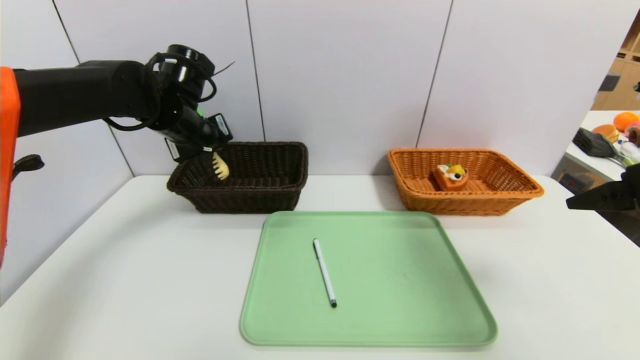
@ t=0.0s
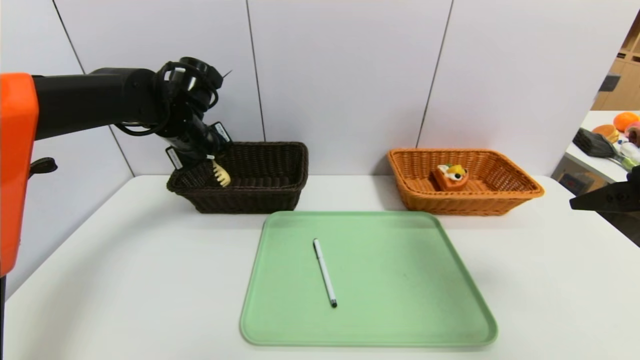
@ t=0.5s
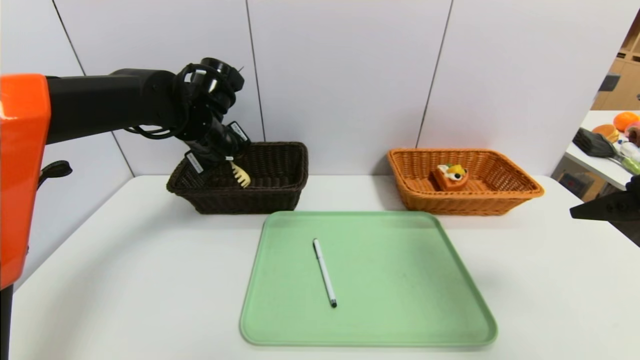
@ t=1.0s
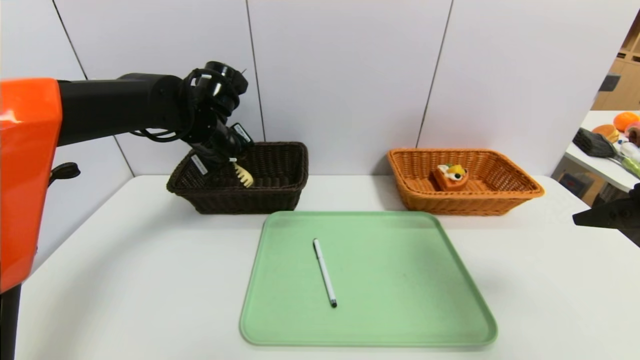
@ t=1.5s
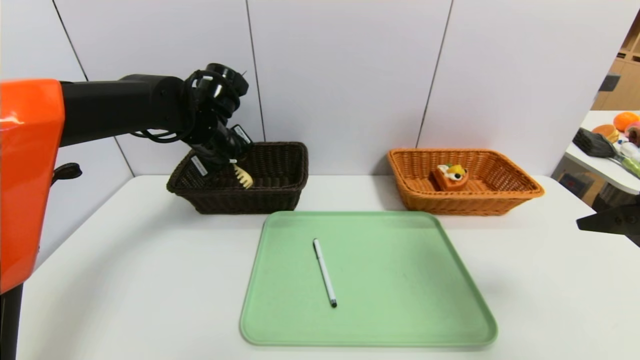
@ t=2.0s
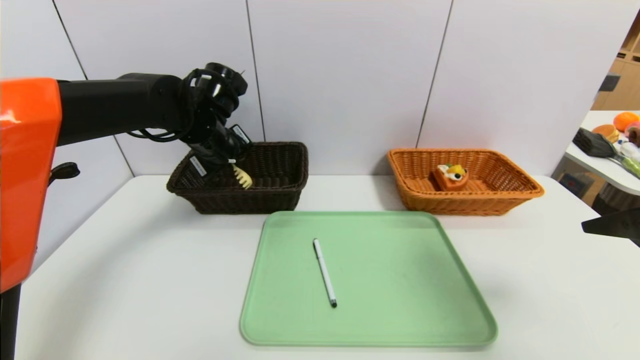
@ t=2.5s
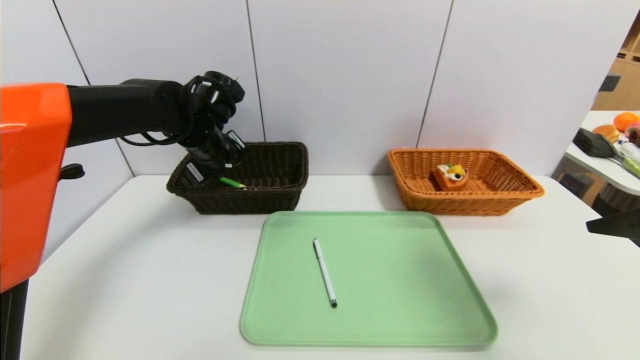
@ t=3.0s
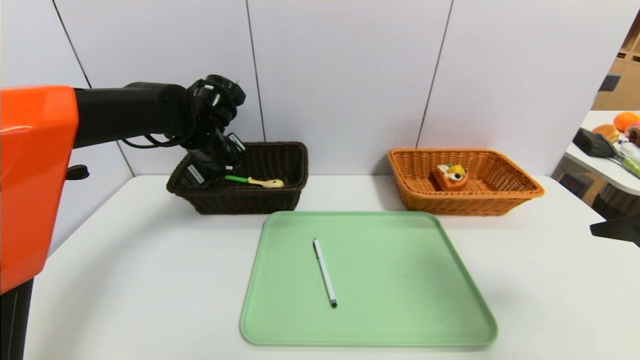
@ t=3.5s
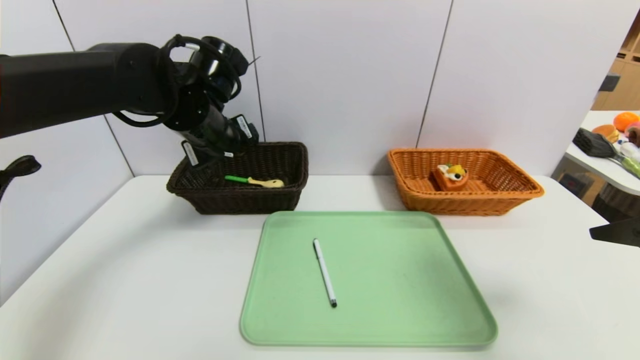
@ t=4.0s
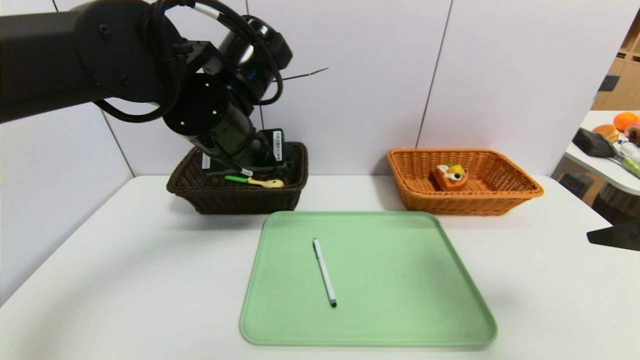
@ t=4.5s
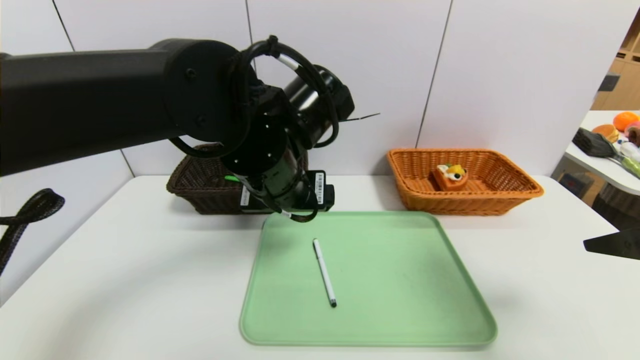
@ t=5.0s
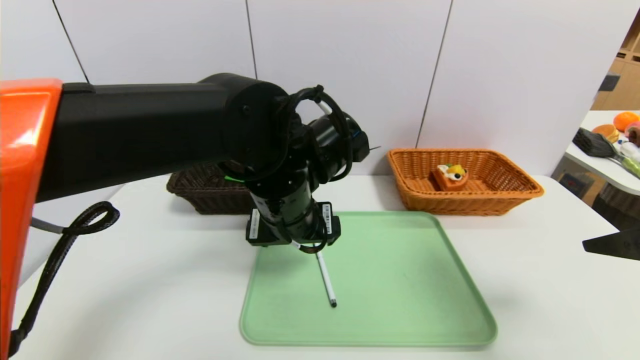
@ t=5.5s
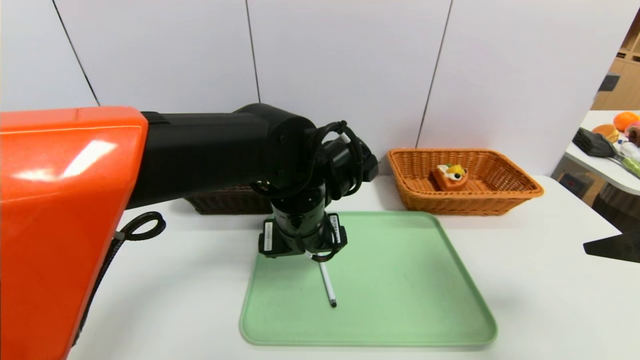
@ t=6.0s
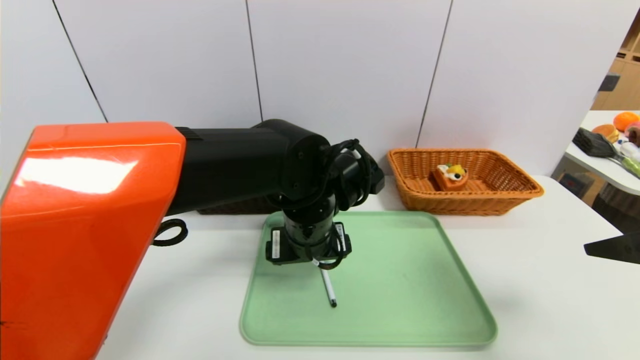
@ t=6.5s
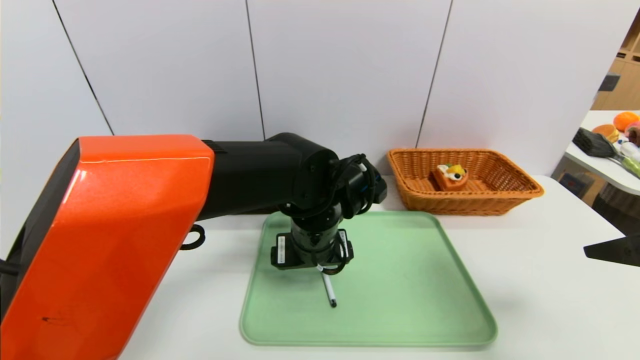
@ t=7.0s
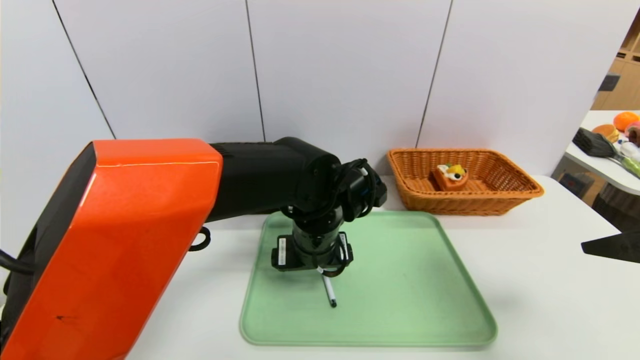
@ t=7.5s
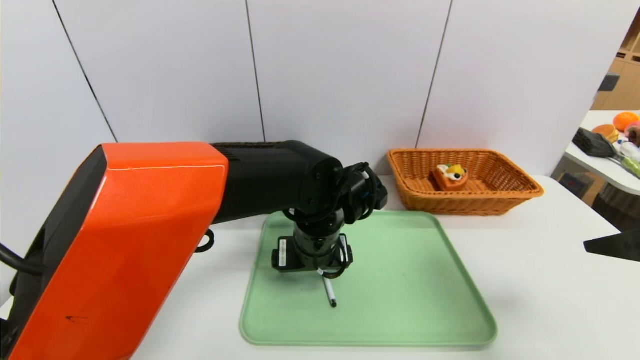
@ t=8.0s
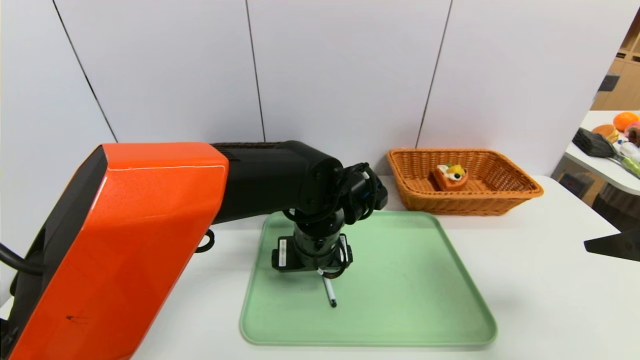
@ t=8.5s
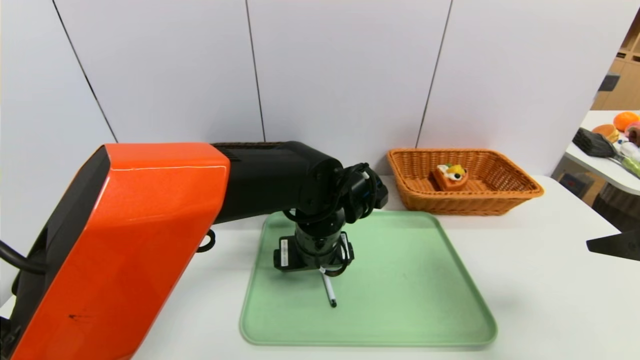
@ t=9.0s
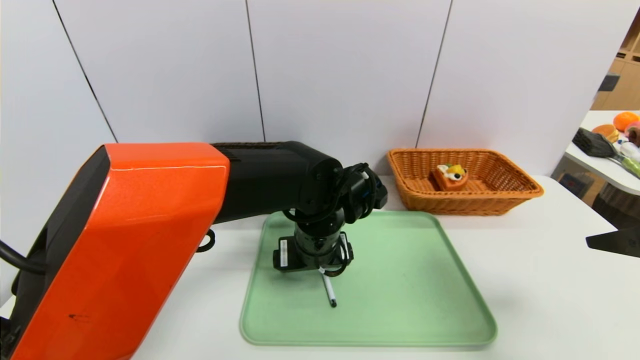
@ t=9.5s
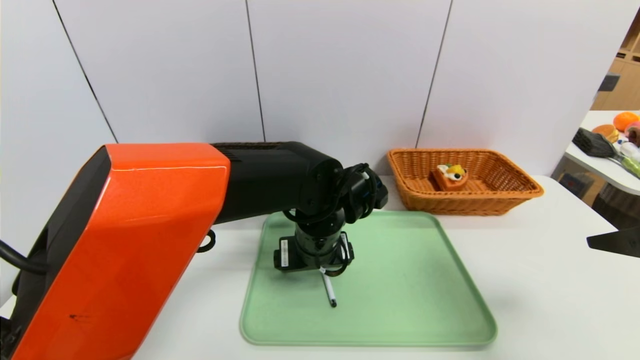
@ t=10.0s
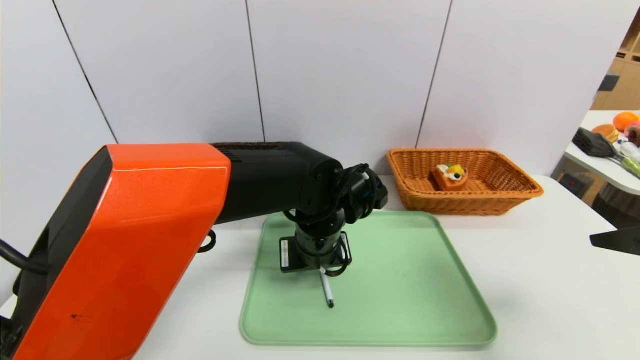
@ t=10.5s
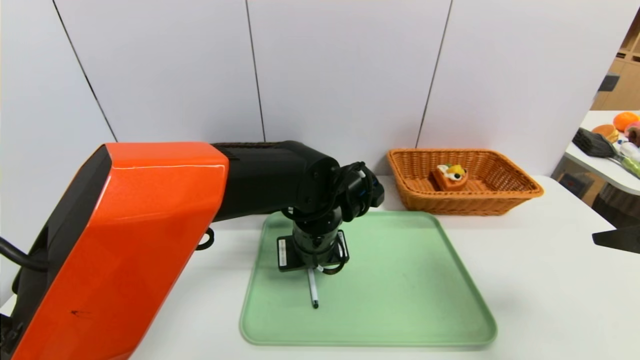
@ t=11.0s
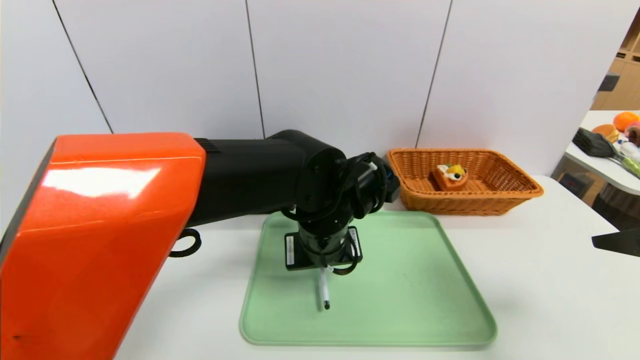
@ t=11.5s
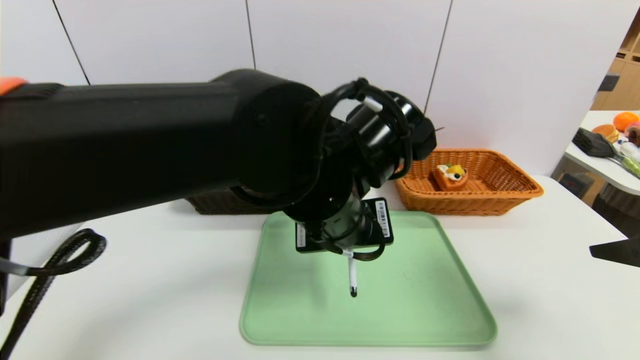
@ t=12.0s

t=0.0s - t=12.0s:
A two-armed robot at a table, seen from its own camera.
Task of the whole recording: place the food in the right basket with the right gripper, and place the non food items in the left basket with the left gripper.
Step, t=0.0s - t=3.5s: Grasp the back scratcher and put it in the left basket.
t=0.0s - t=2.0s: The grippers make only small movements.
t=2.0s - t=4.0s: The left gripper ends up some 5 cm from where it was, and opens its fingers.
t=4.0s - t=6.0s: The left gripper goes some 15 cm to the right, backward and downward.
t=6.0s - t=8.0s: The left gripper shifts by some 5 cm.
t=8.0s - t=10.0s: The two grippers keep their place.
t=10.0s - t=12.0s: The left gripper travels upward and backward by approximately 10 cm, and closes.

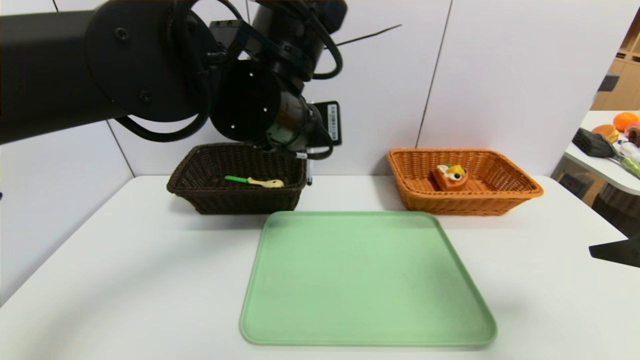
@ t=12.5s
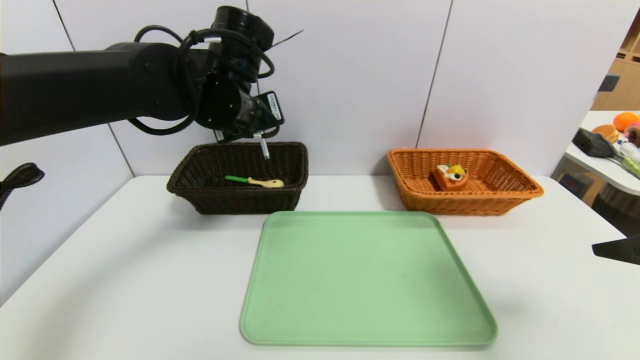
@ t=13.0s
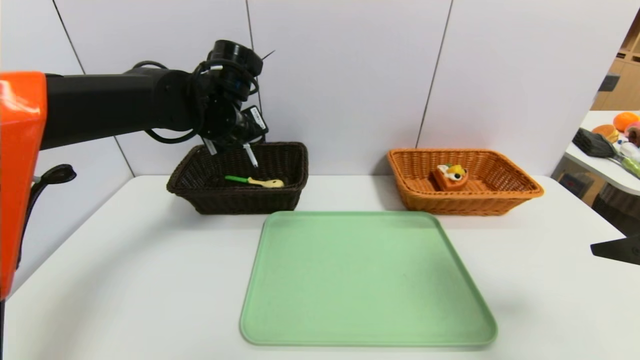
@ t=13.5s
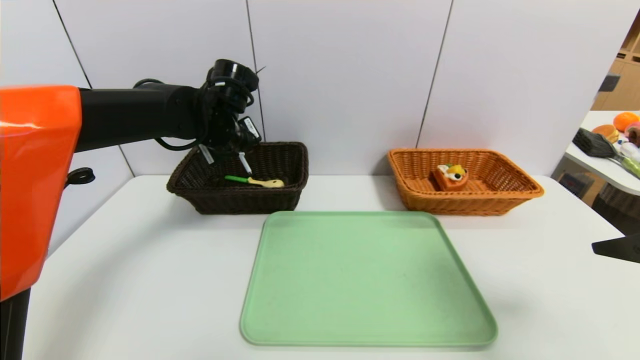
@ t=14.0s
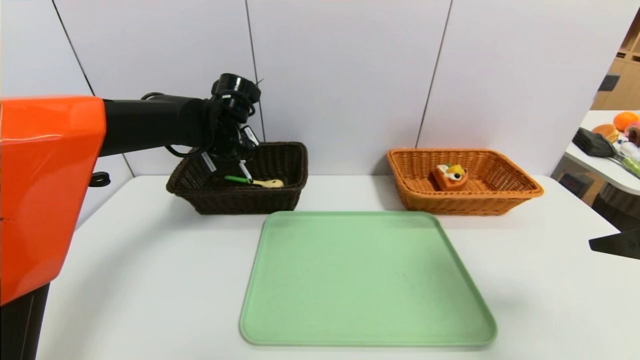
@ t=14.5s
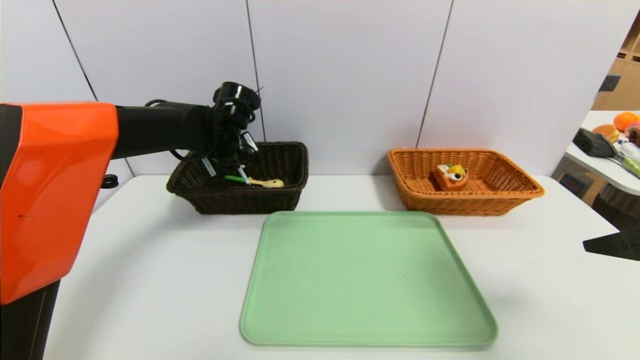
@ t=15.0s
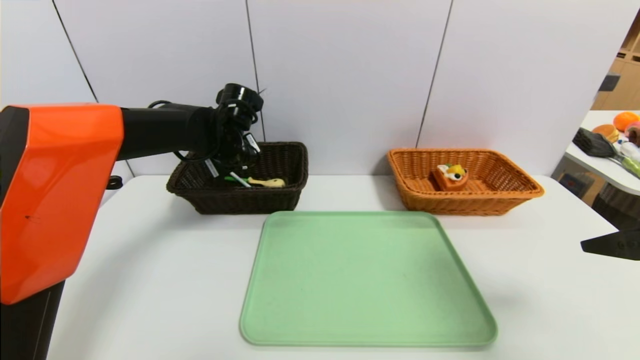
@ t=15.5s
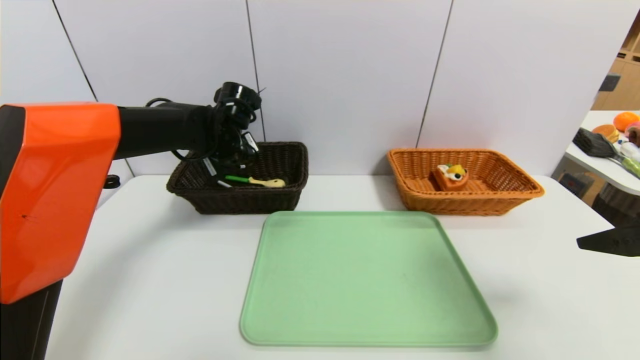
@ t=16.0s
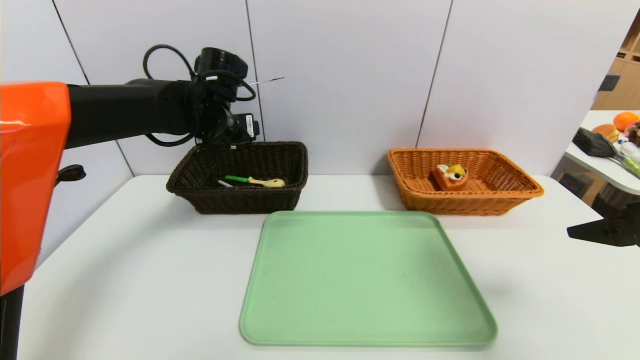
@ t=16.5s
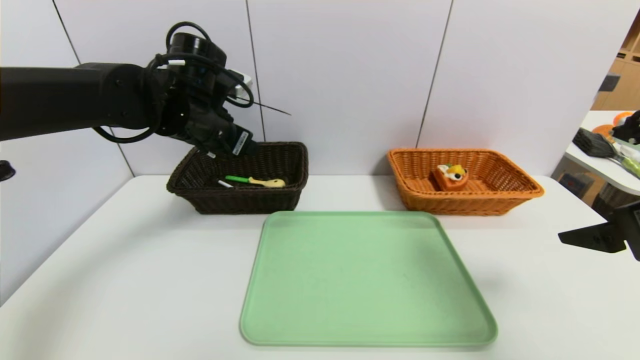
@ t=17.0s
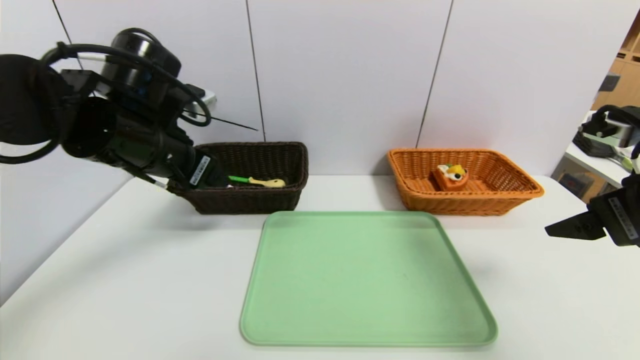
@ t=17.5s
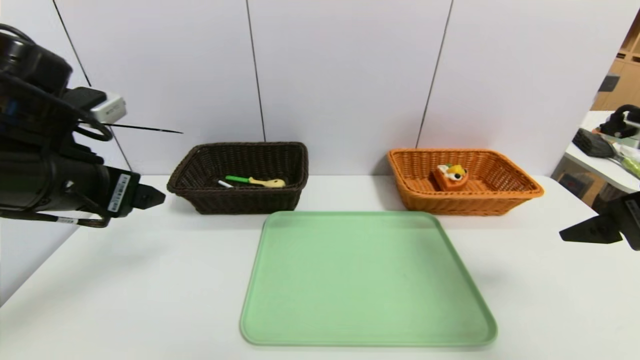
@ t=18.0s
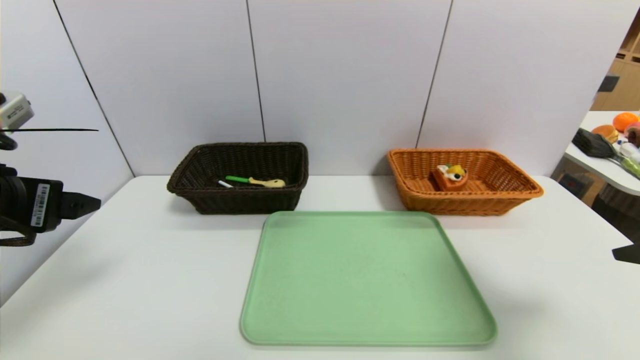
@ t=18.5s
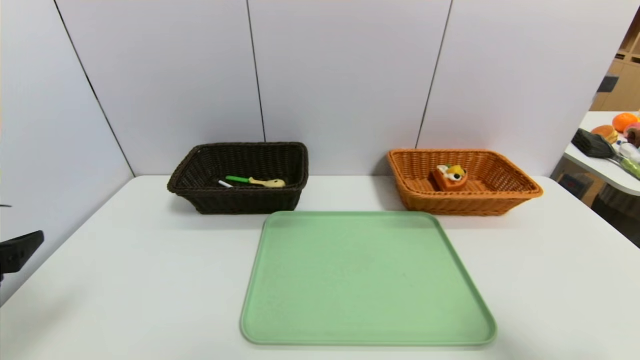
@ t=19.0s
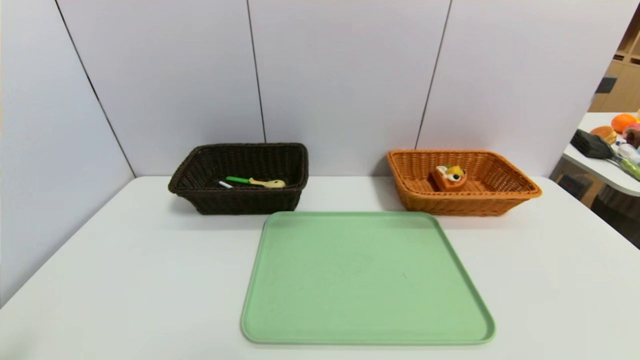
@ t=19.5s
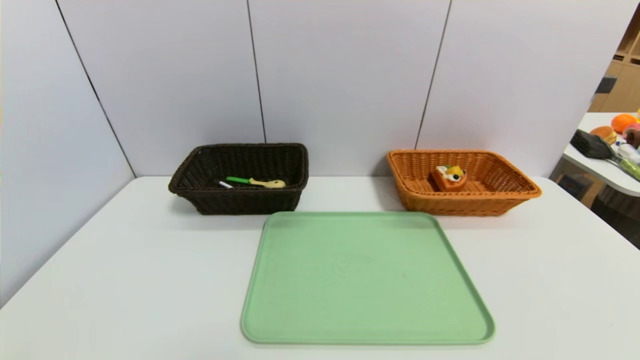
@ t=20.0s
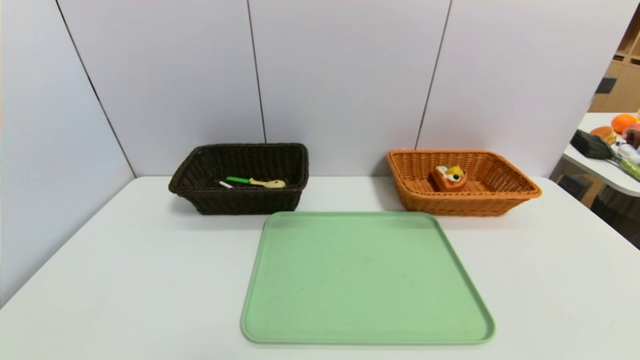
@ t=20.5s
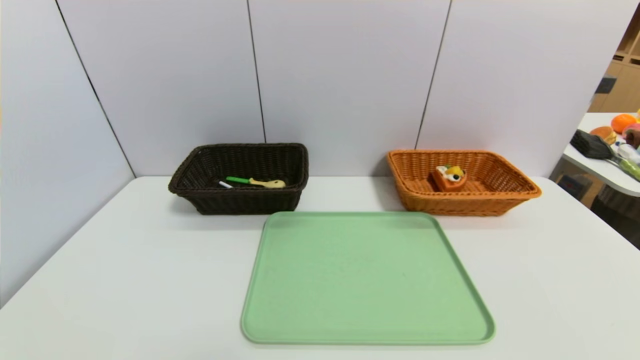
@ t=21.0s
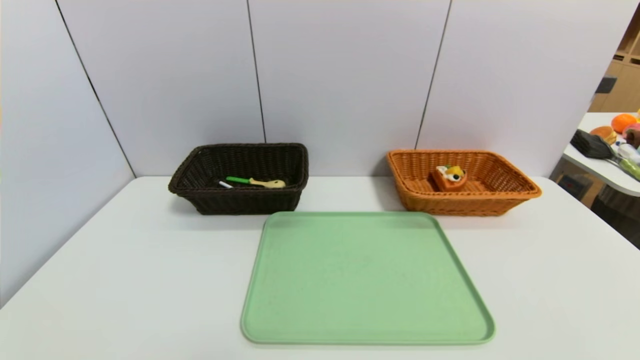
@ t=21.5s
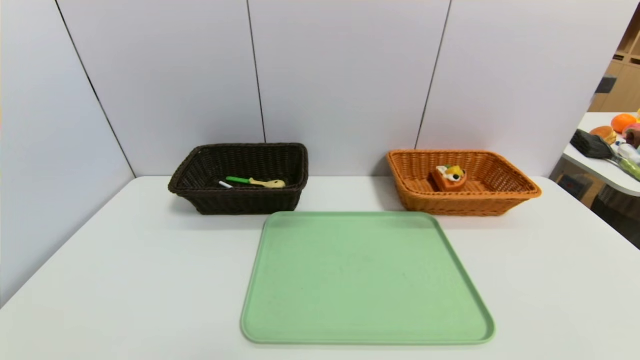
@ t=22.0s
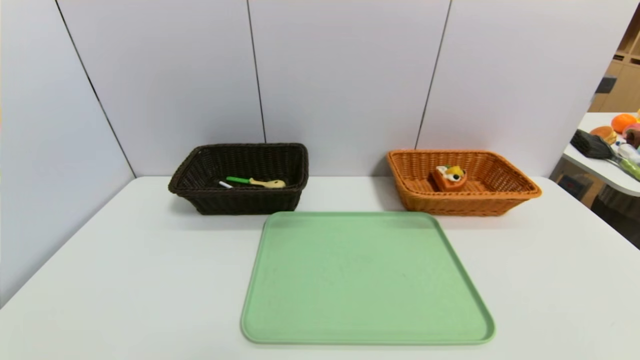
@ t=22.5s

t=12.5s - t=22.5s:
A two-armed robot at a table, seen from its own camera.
Task of the whole recording: place the food in the right basket with the right gripper, and place the non food items in the left basket with the left gripper.
Step, t=12.5s - t=15.5s: Grasp the black marker and put it in the left basket.
t=12.5s - t=14.5s: The left gripper goes about 20 cm forward, to the left and downward.
t=14.5s - t=16.5s: The left gripper opens its fingers.
t=16.5s - t=18.5s: The left gripper moves backward and to the left, approximately 30 cm.
t=18.5s - t=20.5s: Both grippers travel together backward and downward, roughly 25 cm.
